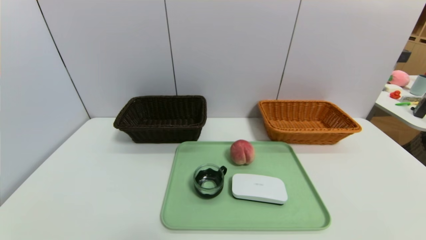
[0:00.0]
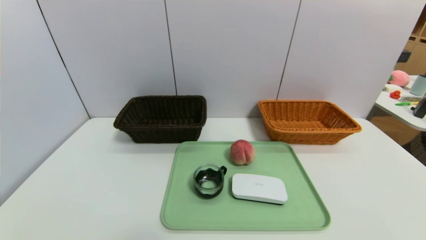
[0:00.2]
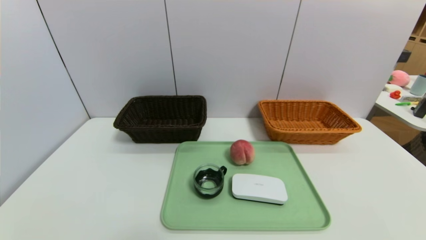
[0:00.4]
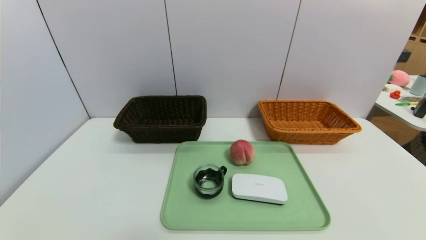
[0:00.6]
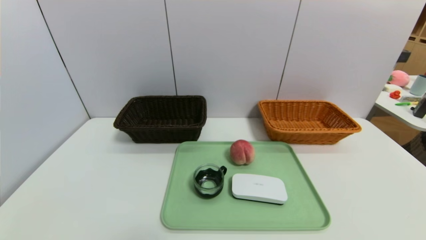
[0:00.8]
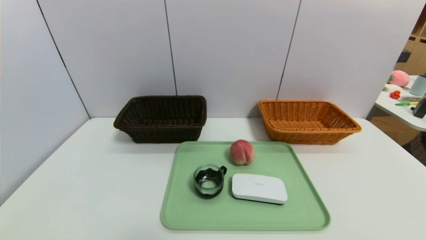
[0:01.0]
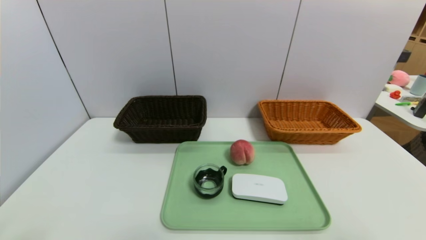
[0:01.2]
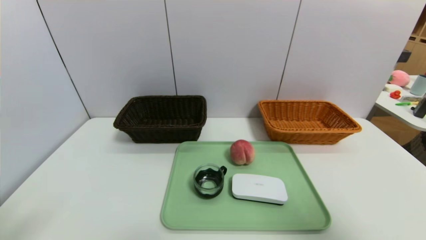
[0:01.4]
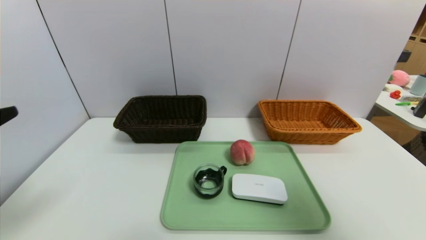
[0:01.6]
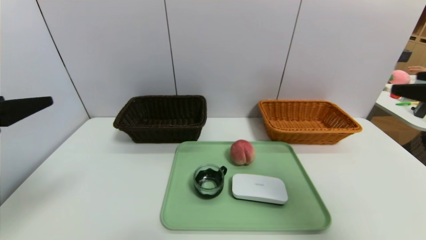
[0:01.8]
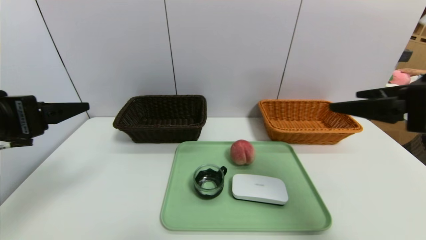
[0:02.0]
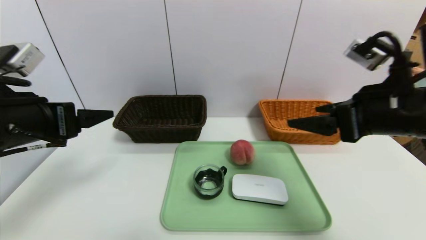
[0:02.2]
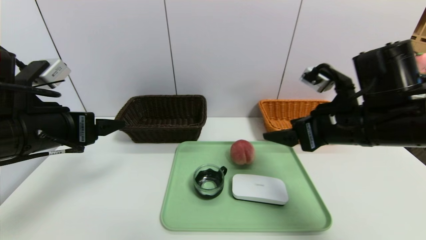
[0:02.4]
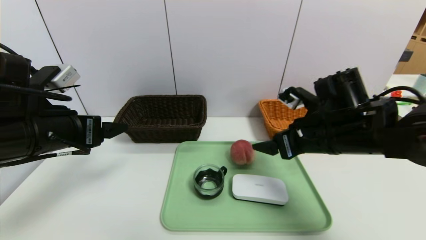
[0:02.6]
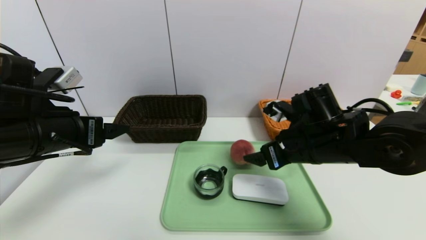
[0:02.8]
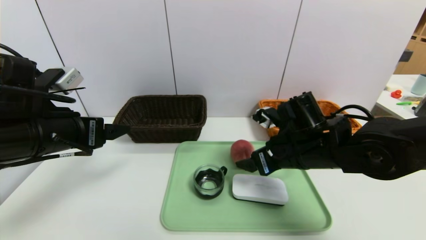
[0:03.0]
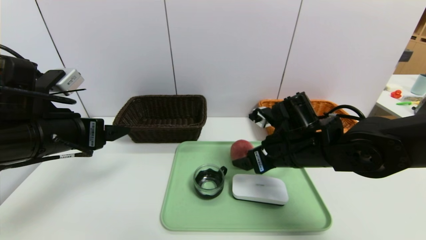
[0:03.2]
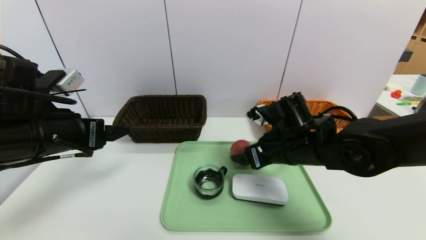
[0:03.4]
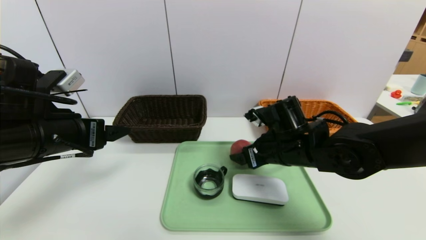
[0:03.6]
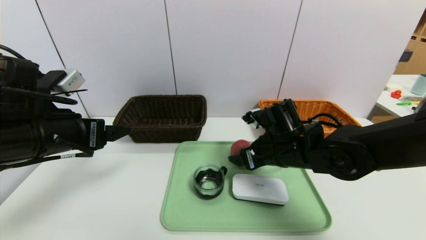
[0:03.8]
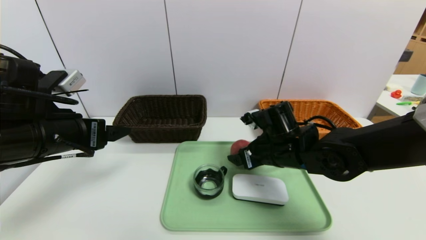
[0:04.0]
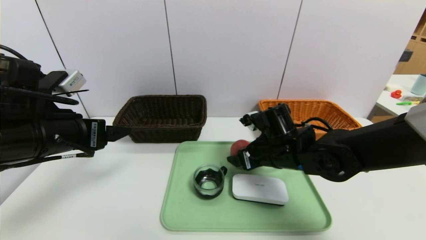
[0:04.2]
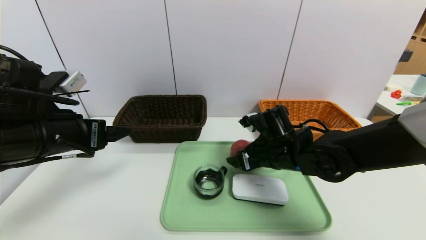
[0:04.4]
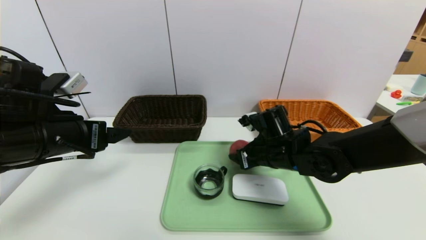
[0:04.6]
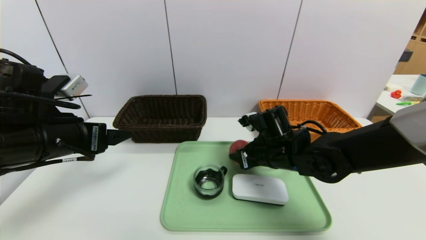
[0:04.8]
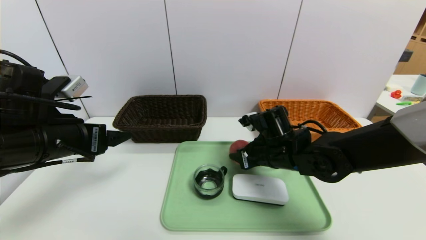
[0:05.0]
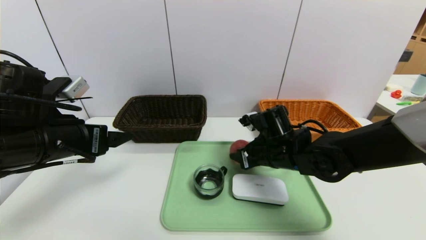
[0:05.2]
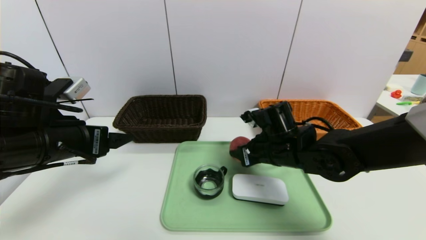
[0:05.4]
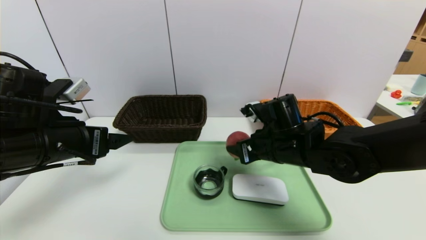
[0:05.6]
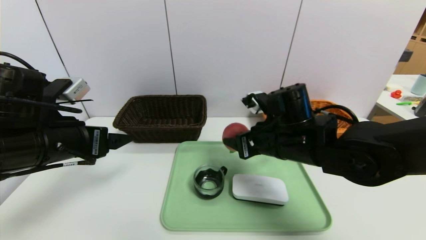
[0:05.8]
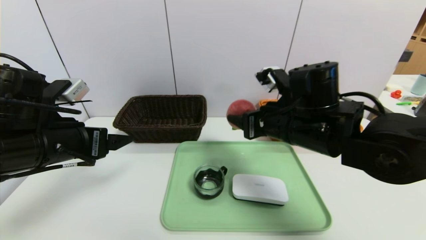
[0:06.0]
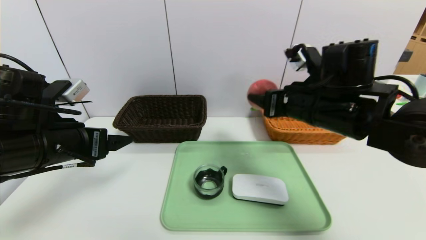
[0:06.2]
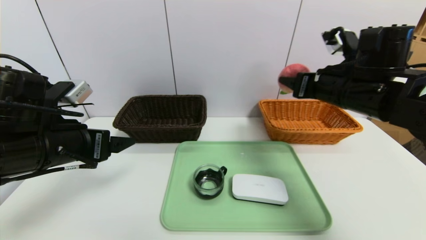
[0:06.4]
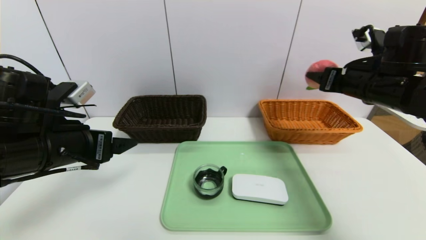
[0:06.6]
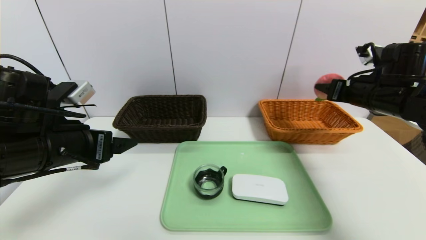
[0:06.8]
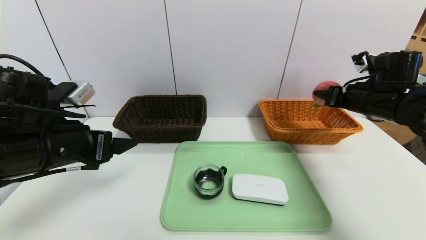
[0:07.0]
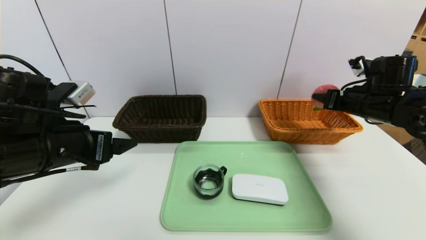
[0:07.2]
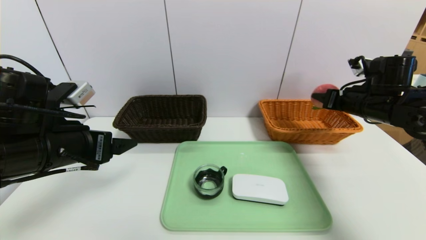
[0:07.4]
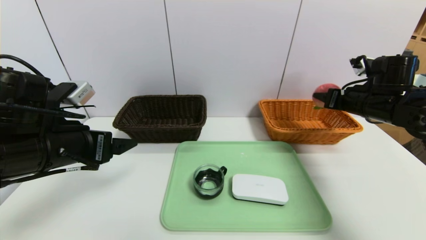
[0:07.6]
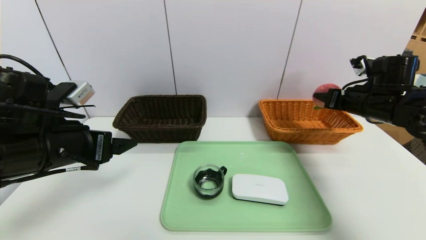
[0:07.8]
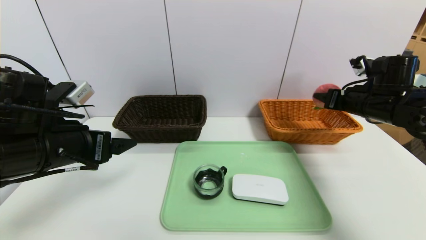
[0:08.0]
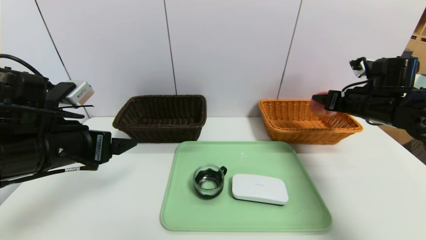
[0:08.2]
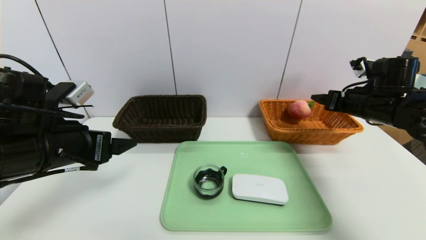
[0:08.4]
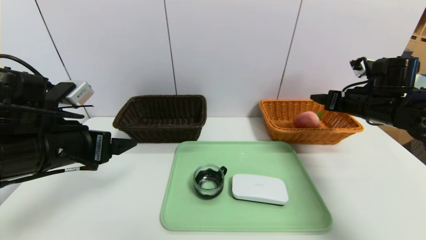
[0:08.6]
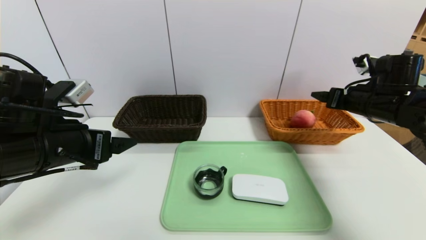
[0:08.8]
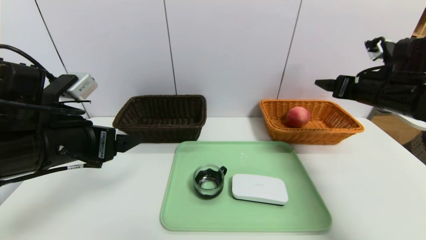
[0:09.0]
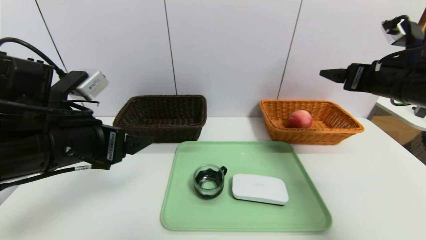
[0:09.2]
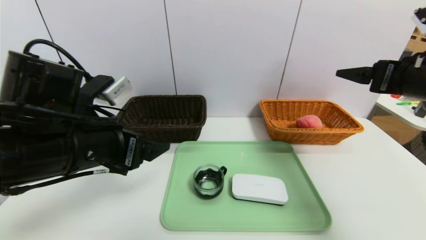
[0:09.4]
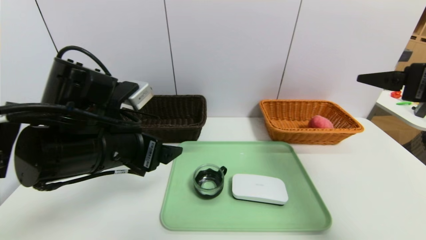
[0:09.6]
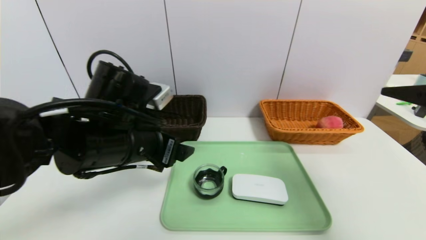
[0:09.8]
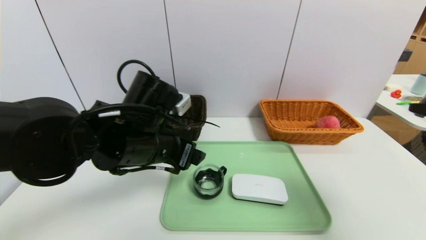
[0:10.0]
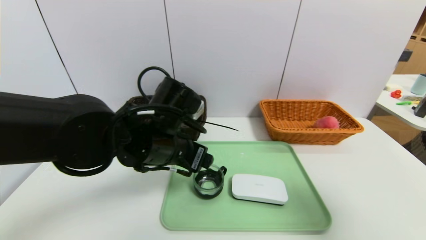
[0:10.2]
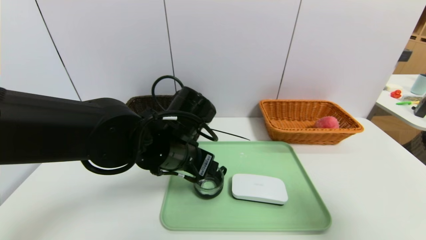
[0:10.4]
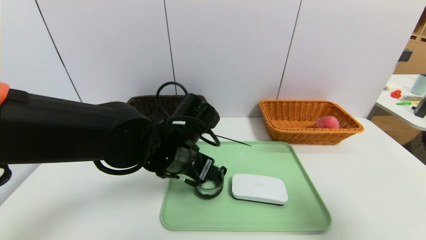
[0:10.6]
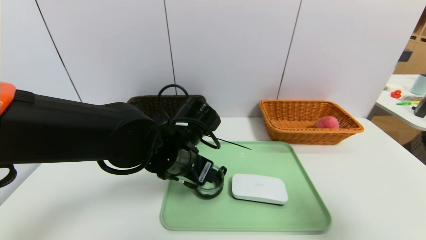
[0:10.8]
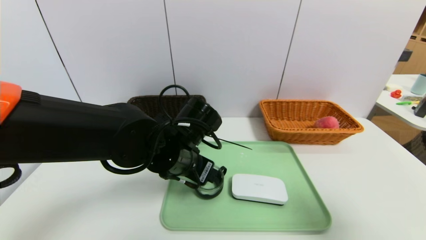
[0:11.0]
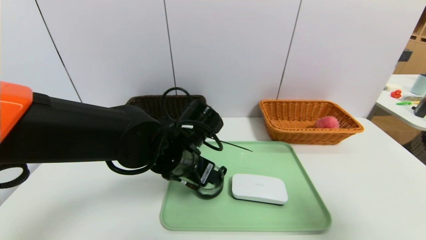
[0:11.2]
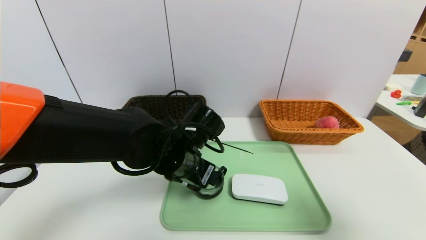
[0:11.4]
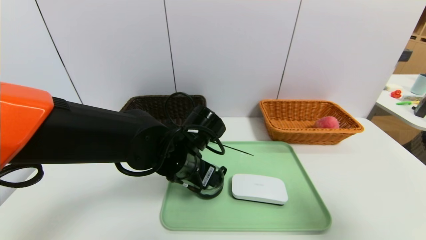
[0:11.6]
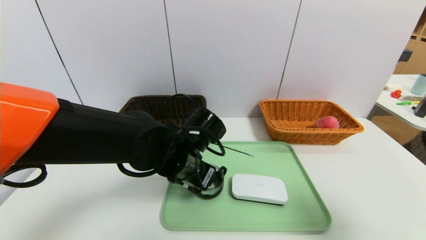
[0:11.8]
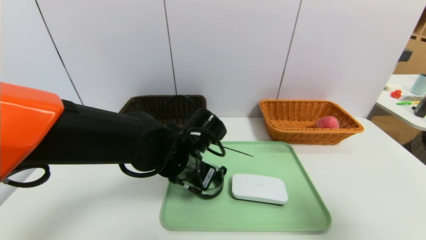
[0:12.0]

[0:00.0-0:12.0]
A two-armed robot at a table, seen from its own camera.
Task of the whole recording: place the food in the right basket with the right gripper, and place the non food items in the left basket with the left gripper.
Step, 0:00.0 to 0:08.4: Grasp the peach and put it in the right basket.
0:00.0 to 0:01.6: Both grippers move upward, roughly 25 cm.
0:01.6 to 0:03.0: The left gripper goes about 15 cm forward; the right gripper is displaced forward, downward and to the left by approximately 30 cm.
0:03.0 to 0:04.4: The right gripper changes place by some 5 cm.
0:04.4 to 0:06.0: The right gripper travels upward by roughly 10 cm, and closes.
0:06.0 to 0:07.6: The right gripper travels to the right and forward by about 20 cm.
0:07.6 to 0:09.0: The right gripper moves about 5 cm, and opens its fingers.
0:09.0 to 0:10.4: The left gripper is displaced to the right by some 15 cm; the right gripper moves backward, roughly 25 cm.
0:10.4 to 0:12.0: The left gripper closes its fingers.

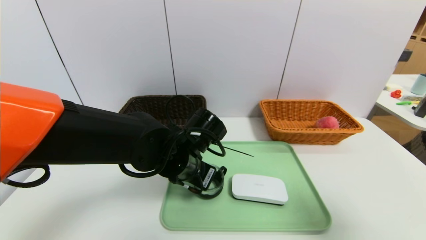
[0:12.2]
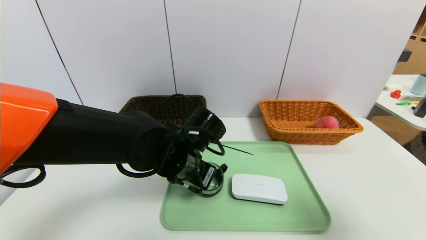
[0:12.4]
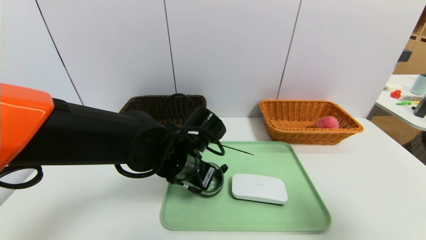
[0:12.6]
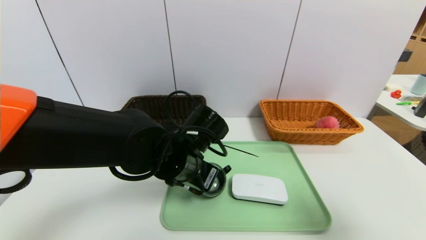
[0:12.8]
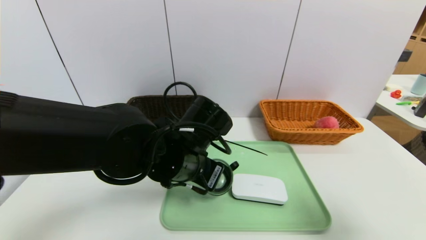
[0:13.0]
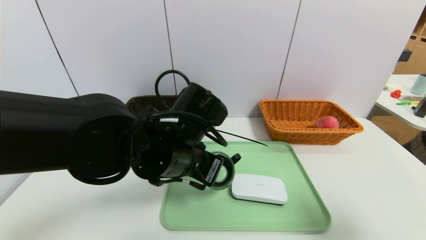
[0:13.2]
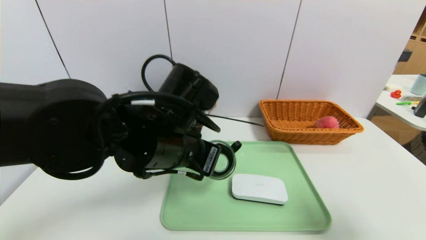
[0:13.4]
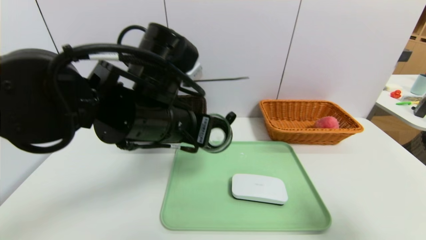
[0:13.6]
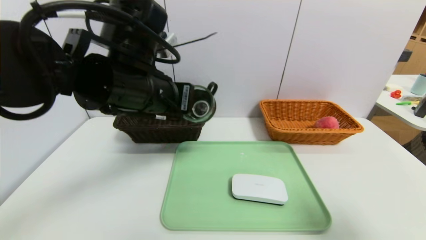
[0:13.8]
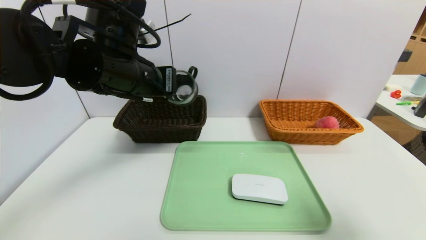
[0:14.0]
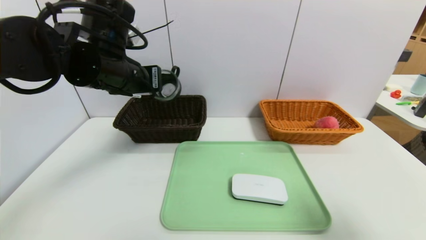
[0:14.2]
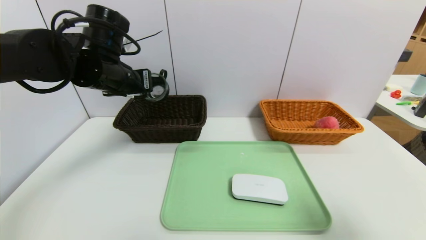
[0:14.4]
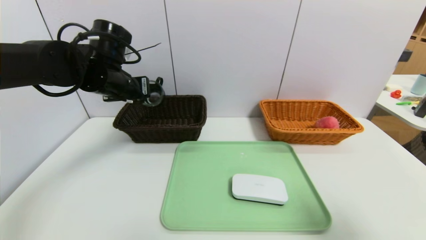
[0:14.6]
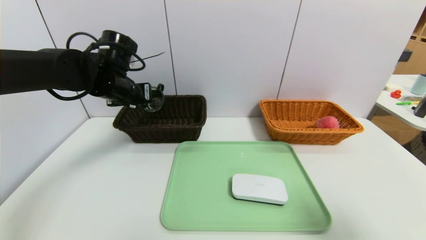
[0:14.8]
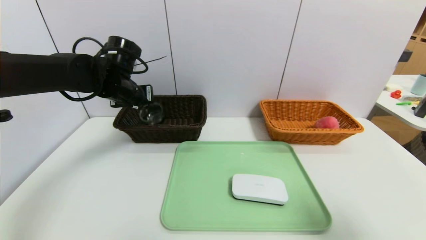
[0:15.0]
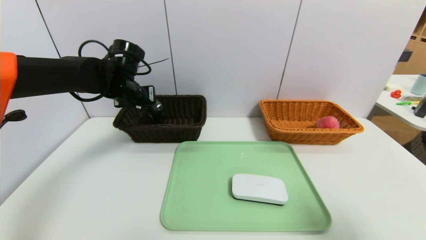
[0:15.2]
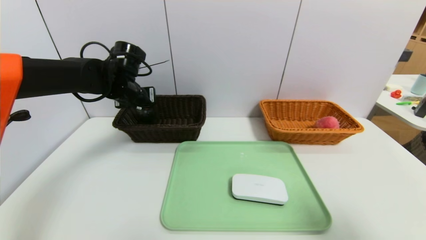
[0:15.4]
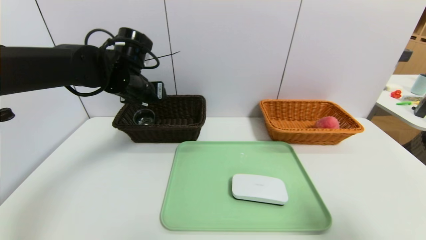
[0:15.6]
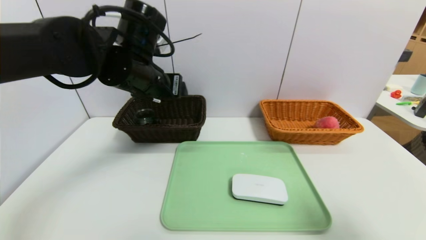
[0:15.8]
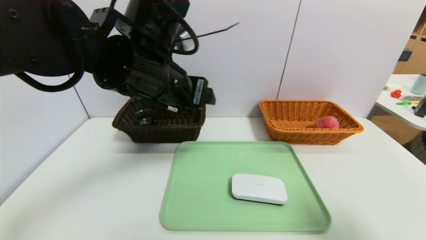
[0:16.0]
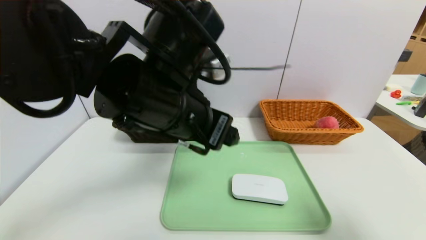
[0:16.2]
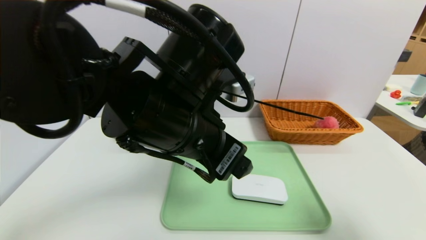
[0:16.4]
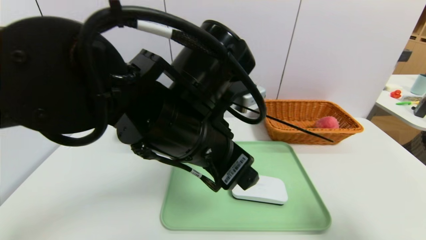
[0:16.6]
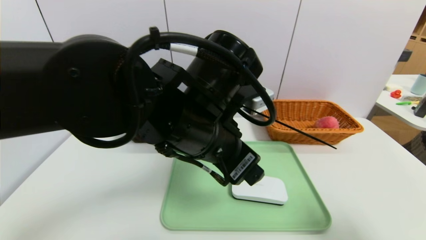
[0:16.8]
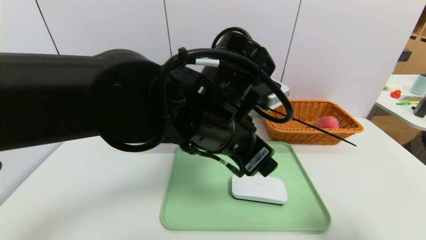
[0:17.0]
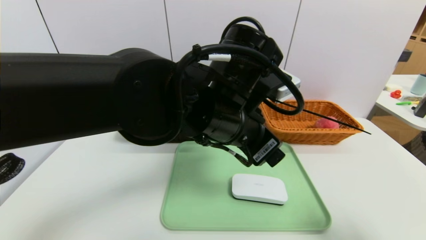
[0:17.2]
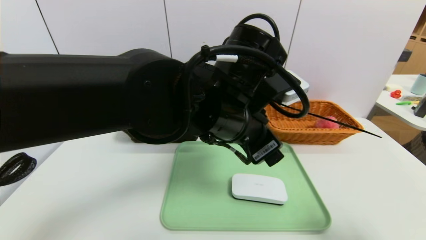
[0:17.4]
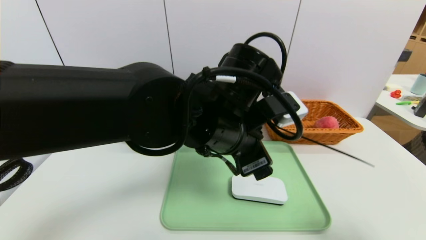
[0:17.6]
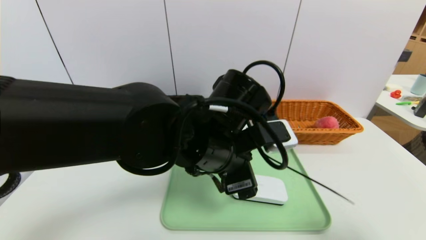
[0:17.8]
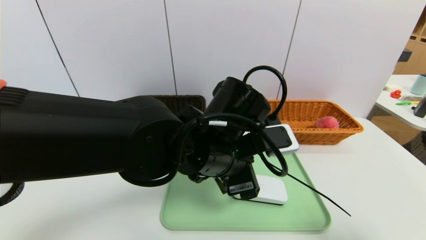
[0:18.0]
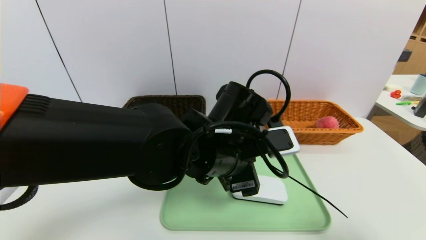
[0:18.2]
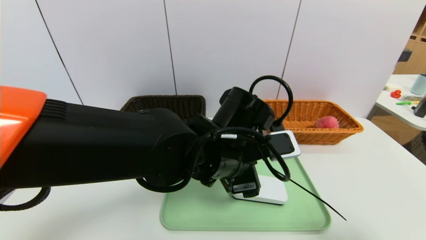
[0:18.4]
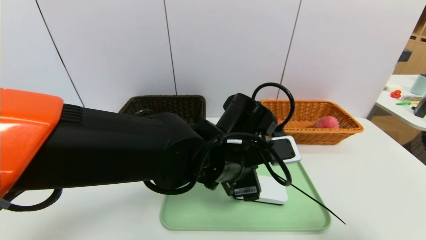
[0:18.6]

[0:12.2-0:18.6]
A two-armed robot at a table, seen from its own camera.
Task of the whole recording: place the food in the right basket with the right gripper, and place the non food items in the left basket with the left gripper.
Step, 0:12.2 to 0:15.6: Grasp the tea cup and put it in the left basket.
0:12.2 to 0:13.8: The left gripper moves upward, about 15 cm.
0:13.8 to 0:15.4: The left gripper moves forward, to the left and downward, about 20 cm, and opens its fingers.
0:15.4 to 0:17.0: The left gripper travels to the right and backward by approximately 25 cm.
0:17.0 to 0:18.6: The left gripper heads downward, covering some 5 cm.
